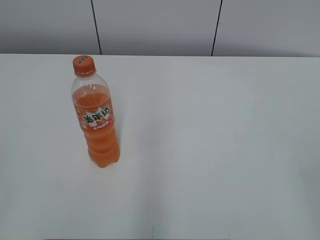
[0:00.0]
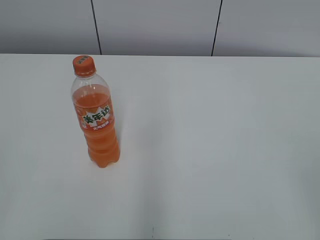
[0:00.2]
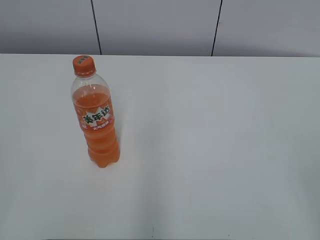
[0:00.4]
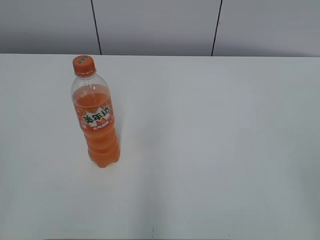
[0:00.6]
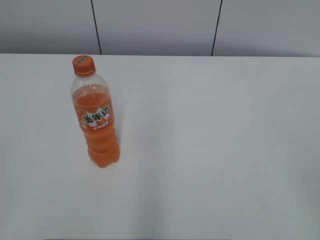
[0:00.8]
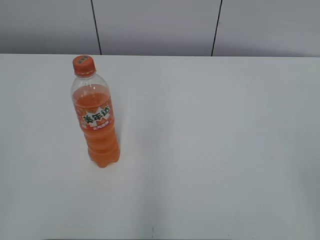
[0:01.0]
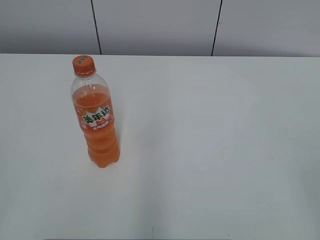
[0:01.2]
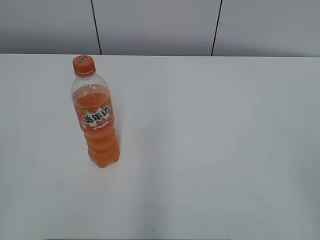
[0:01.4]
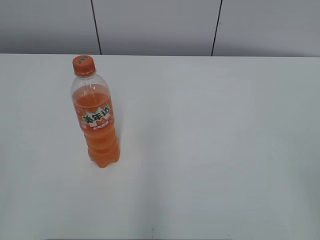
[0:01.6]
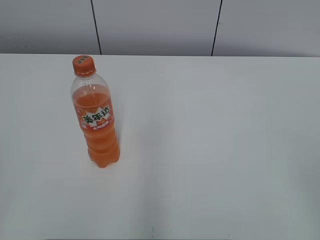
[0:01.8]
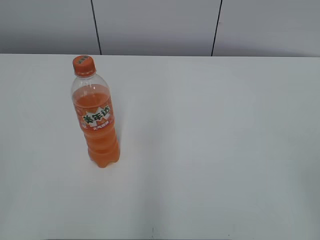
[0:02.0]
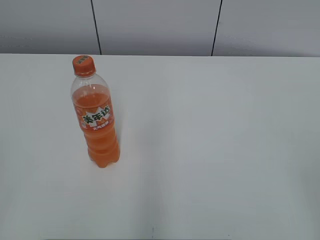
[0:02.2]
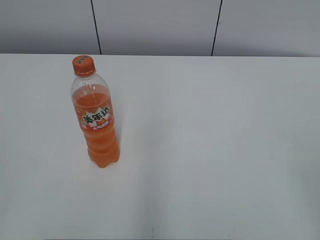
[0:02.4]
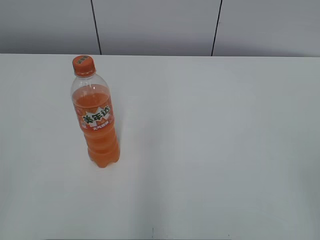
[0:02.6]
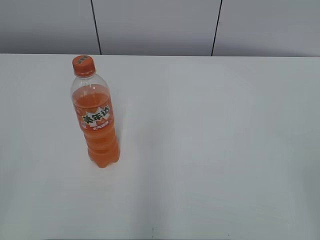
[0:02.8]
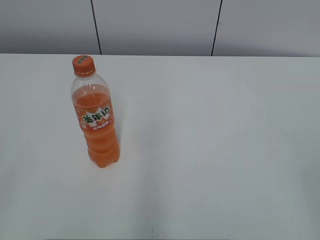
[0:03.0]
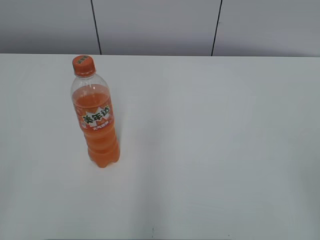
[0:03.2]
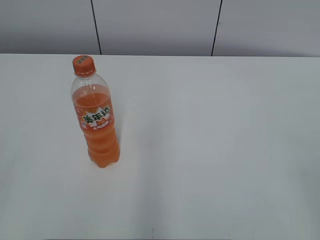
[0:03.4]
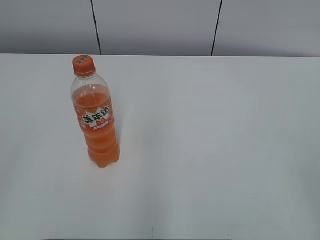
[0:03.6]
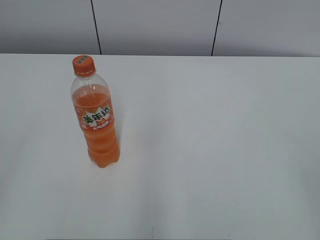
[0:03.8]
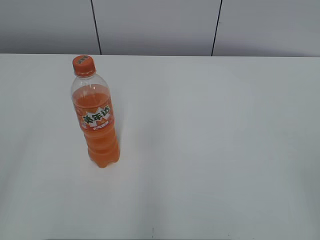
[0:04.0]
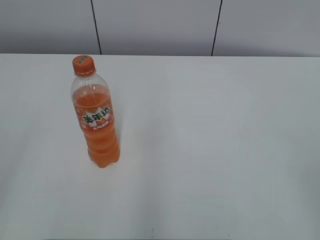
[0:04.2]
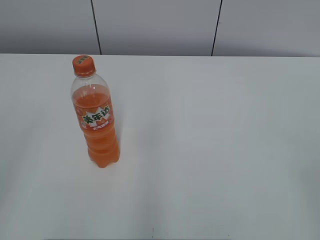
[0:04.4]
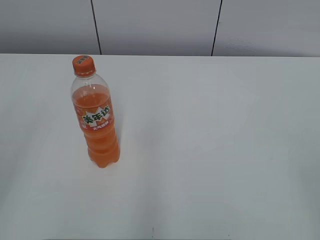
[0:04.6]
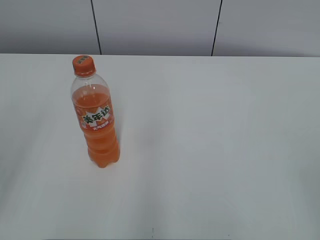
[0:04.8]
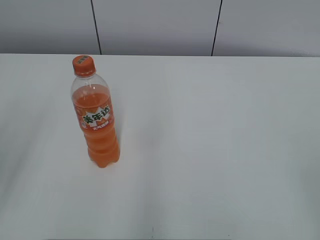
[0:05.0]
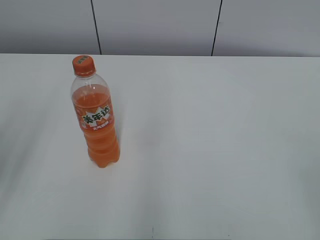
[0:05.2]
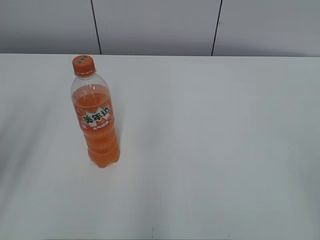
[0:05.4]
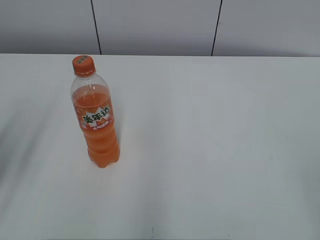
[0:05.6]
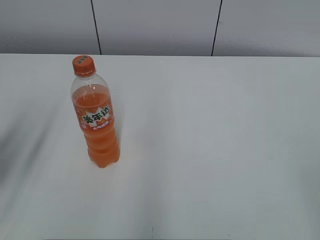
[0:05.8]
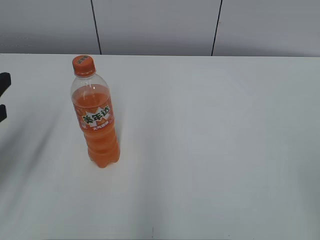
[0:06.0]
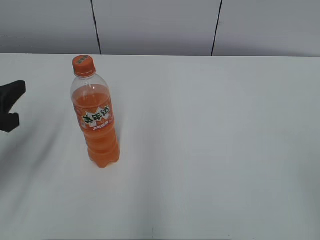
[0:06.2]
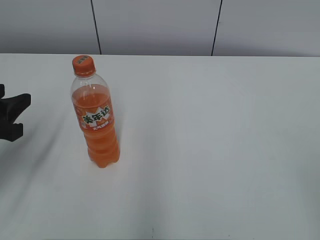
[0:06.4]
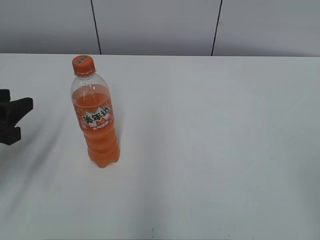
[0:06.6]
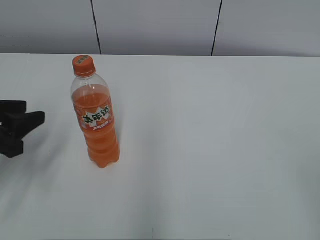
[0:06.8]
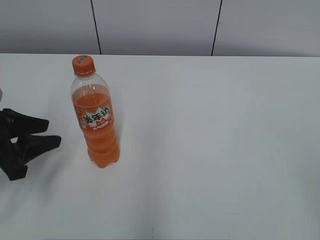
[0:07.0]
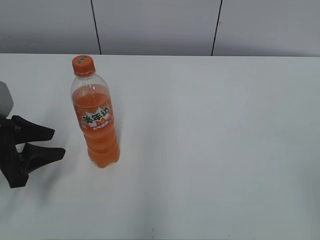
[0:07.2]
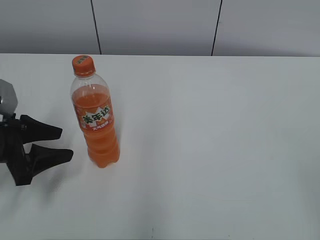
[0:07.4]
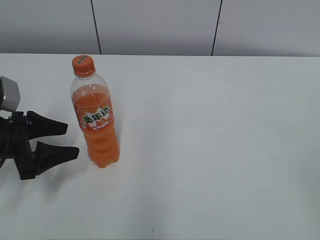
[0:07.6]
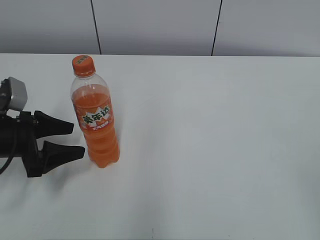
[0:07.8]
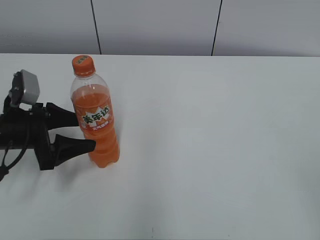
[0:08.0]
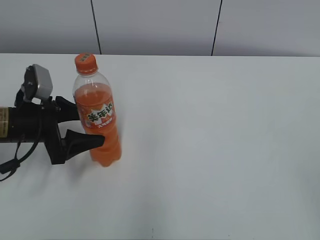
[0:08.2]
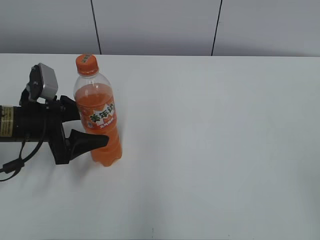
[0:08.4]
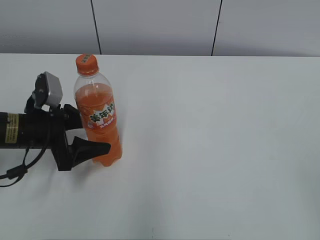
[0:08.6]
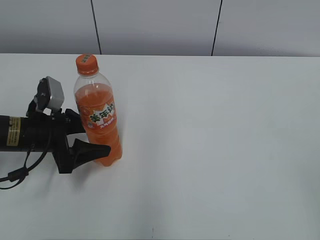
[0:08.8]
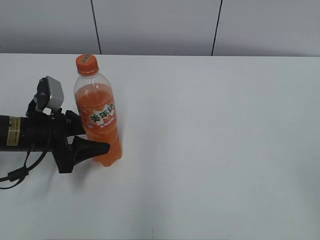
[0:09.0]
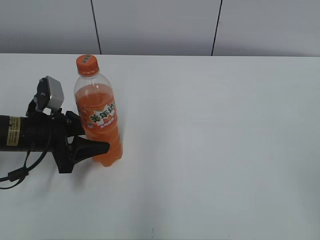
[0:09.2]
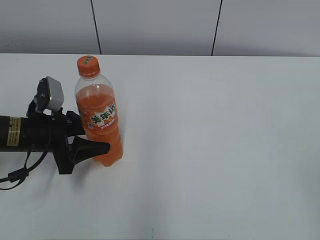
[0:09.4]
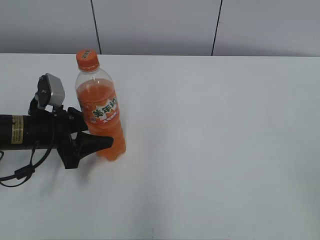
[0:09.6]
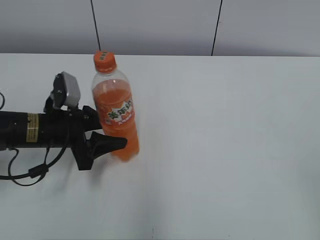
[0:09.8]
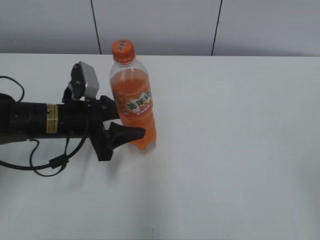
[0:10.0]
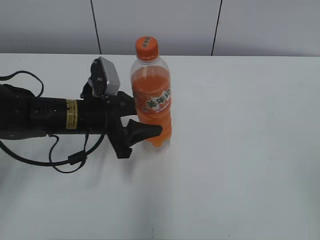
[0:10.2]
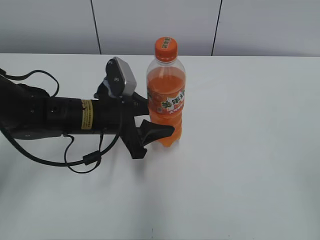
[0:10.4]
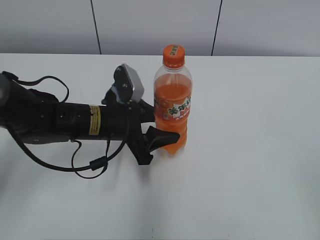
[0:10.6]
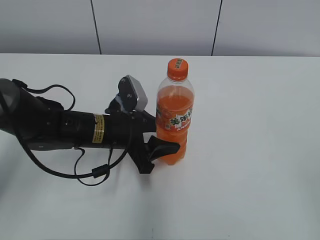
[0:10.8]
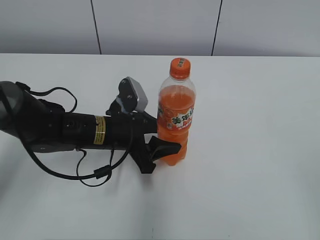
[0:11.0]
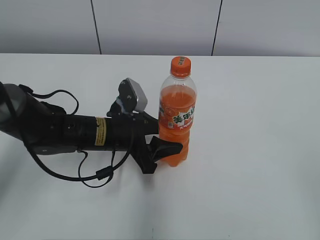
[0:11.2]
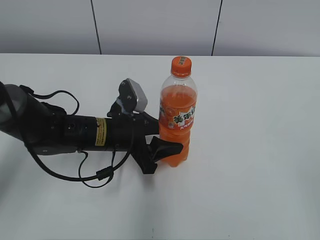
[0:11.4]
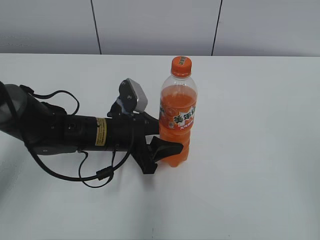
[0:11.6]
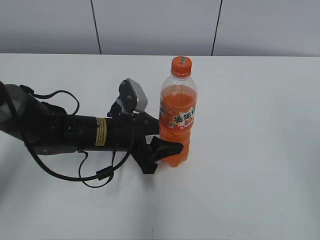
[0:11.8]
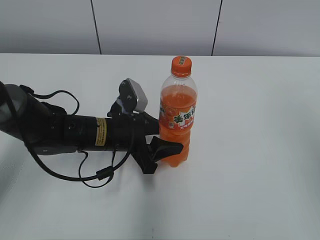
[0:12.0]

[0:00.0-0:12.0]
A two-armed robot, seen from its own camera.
Step, 0:00.0 to 0:09.4: Grab the Mirinda with the left hand.
Step, 0:09.6 to 0:11.6: Move the Mirinda from left to right.
0:04.4 to 0:06.0: The left gripper moves forward and downward, roughly 15 cm.
0:06.0 to 0:07.6: The left gripper goes roughly 10 cm downward and forward, and opens up.
0:07.6 to 0:09.0: The left gripper moves some 5 cm.
0:09.0 to 0:10.4: The left gripper shifts approximately 10 cm to the right.
0:10.4 to 0:12.0: The right gripper is displaced forward and upward by roughly 15 cm.

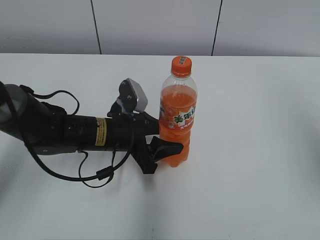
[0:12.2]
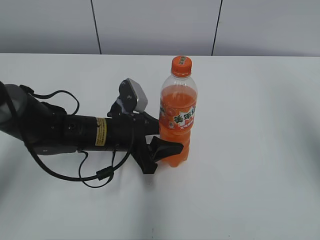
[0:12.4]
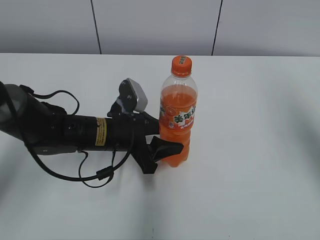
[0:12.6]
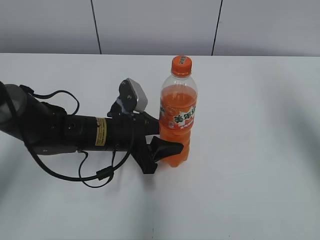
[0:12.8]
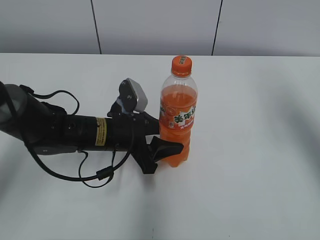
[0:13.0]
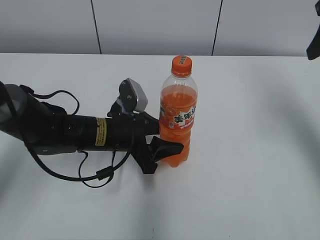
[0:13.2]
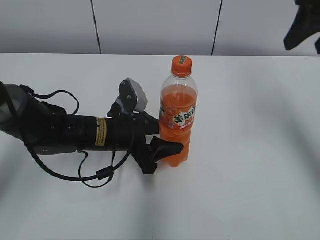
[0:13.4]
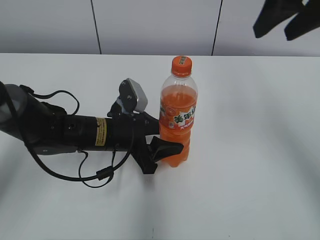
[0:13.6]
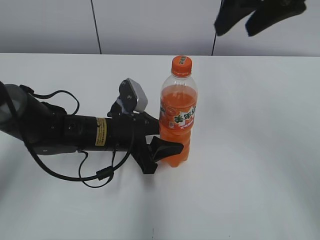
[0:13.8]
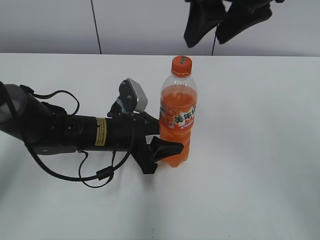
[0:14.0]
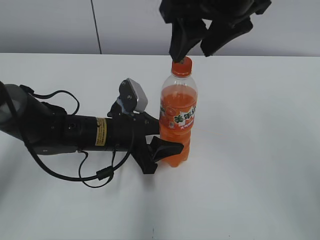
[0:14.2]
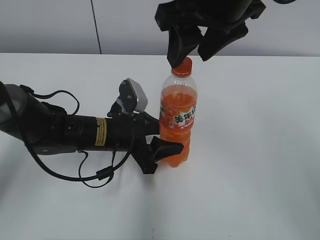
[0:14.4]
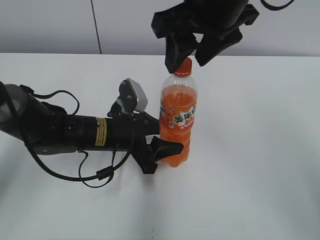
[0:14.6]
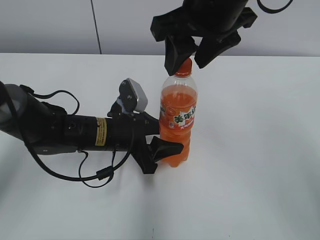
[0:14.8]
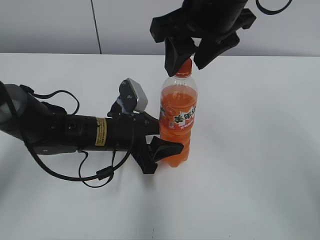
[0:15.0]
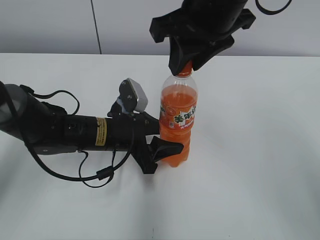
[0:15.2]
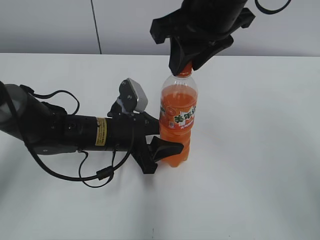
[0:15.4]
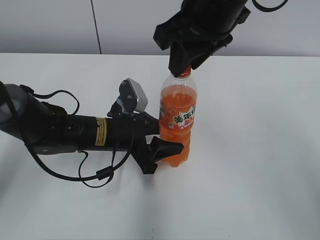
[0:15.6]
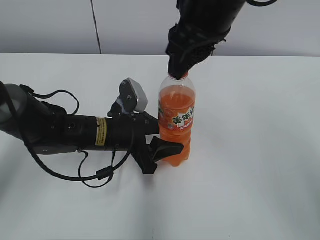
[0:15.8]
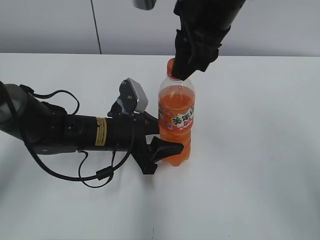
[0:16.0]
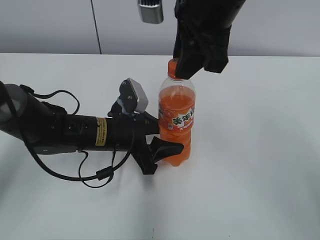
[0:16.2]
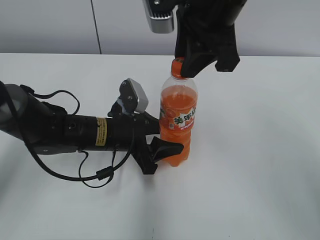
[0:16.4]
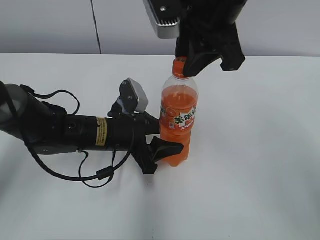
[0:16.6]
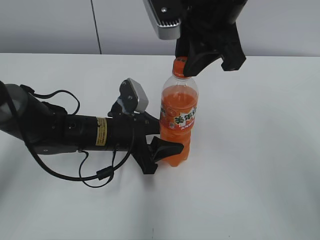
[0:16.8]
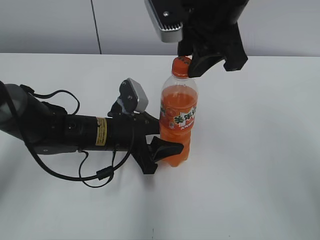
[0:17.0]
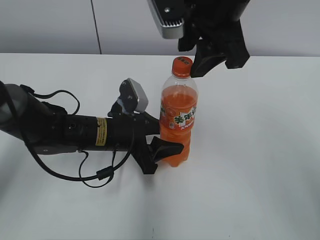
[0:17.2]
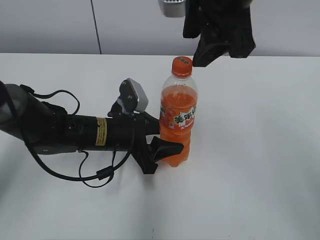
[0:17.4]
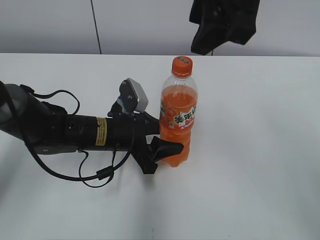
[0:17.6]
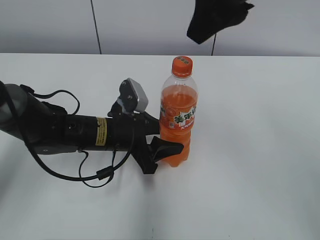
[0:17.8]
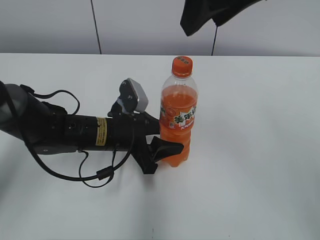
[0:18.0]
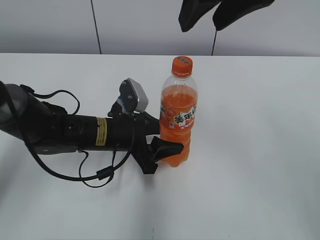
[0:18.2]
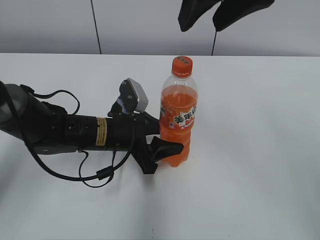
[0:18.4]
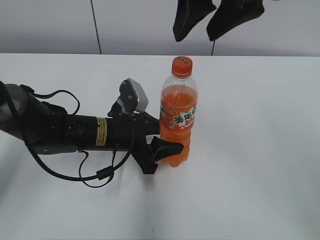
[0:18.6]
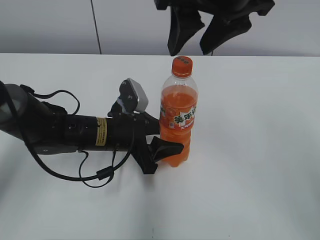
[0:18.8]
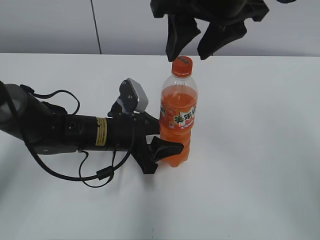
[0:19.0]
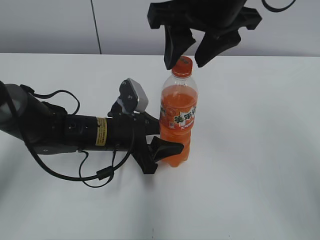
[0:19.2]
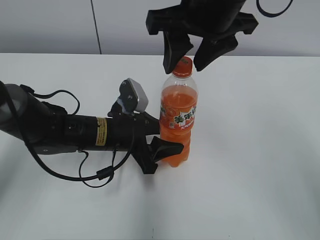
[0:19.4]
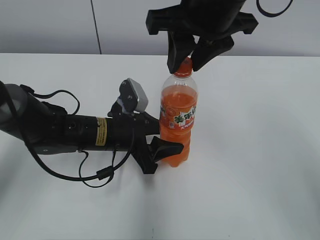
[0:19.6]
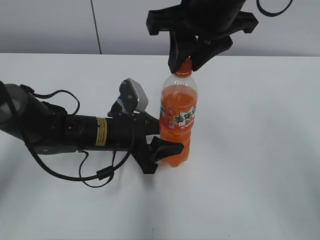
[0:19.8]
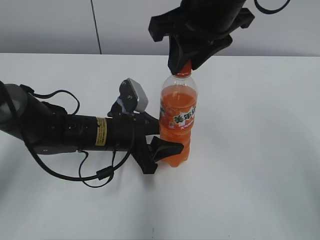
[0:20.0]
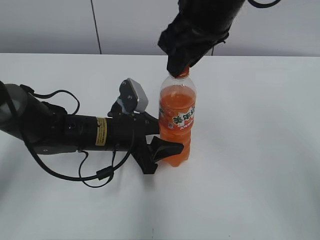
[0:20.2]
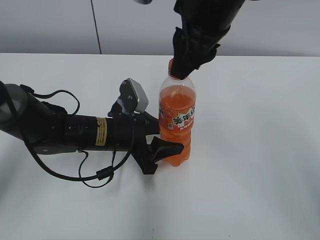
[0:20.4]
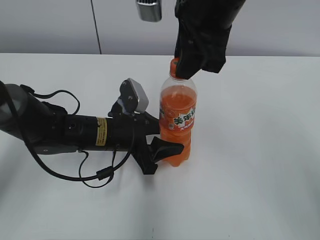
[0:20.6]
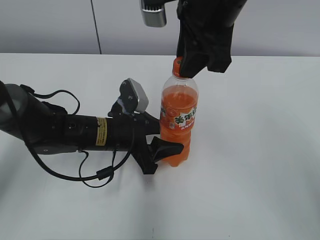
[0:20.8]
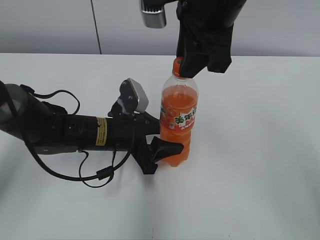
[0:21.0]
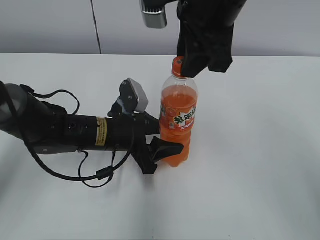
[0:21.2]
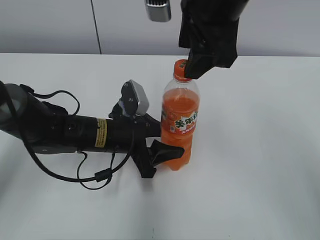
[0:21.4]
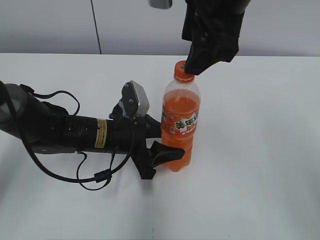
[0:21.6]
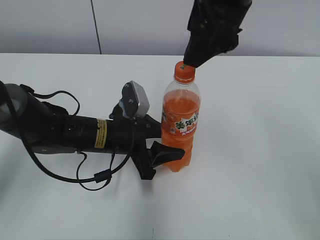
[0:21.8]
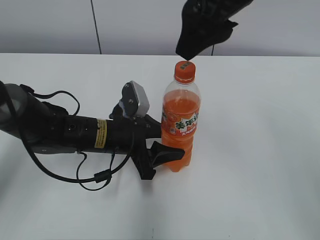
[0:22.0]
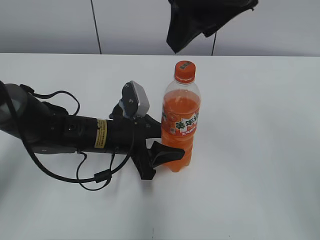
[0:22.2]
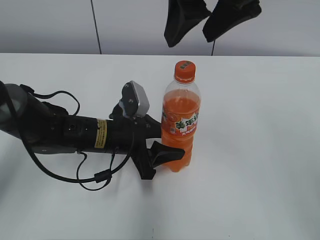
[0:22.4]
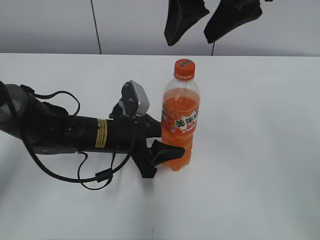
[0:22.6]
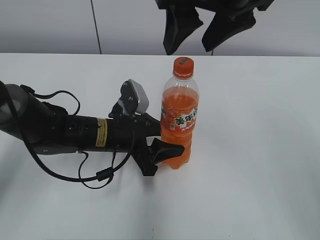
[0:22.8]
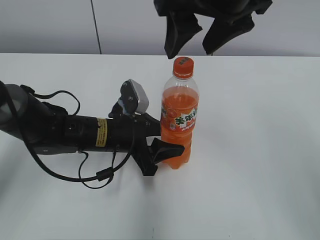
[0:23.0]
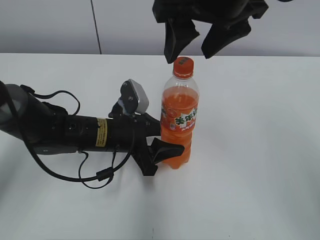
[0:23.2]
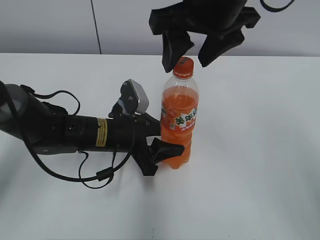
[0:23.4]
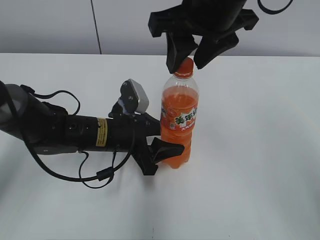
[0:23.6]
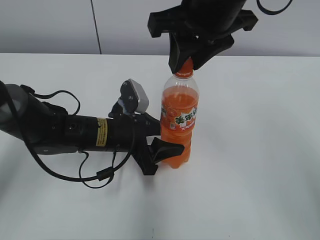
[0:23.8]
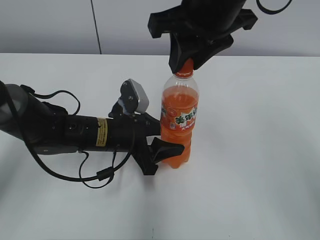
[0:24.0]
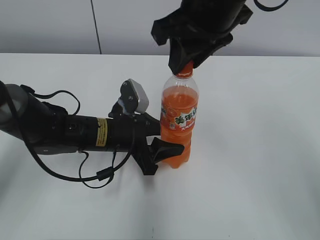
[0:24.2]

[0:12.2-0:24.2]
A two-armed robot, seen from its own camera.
0:12.2 to 0:13.8: The right gripper heads forward and to the left, covering approximately 20 cm.
0:13.8 to 0:15.2: The right gripper goes some 10 cm to the left, and closes its fingers.
0:16.6 to 0:18.2: The right gripper heads upward, covering approximately 5 cm, and opens up.
0:18.2 to 0:19.8: The right gripper moves downward, some 5 cm, and closes.
0:21.2 to 0:22.6: The right gripper shifts by about 5 cm, and opens.
0:22.6 to 0:24.2: The right gripper moves approximately 5 cm, and closes its fingers.
